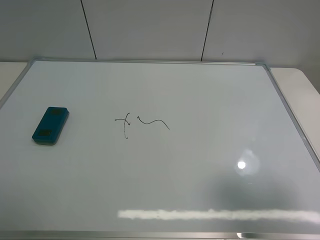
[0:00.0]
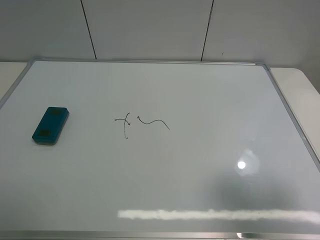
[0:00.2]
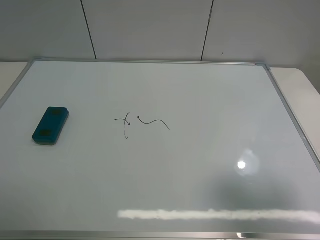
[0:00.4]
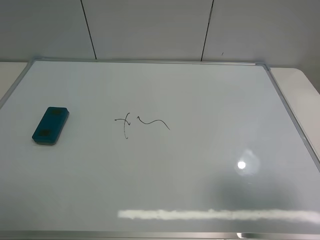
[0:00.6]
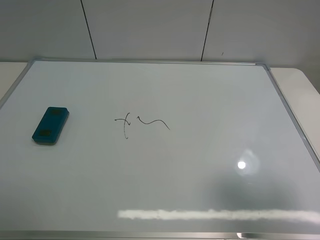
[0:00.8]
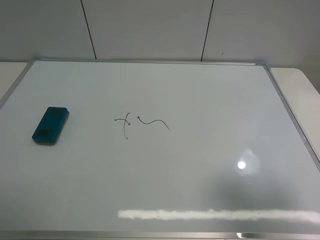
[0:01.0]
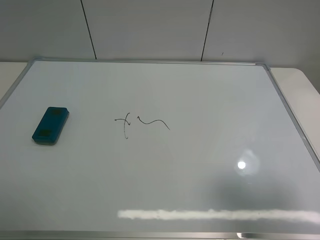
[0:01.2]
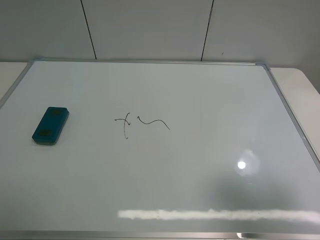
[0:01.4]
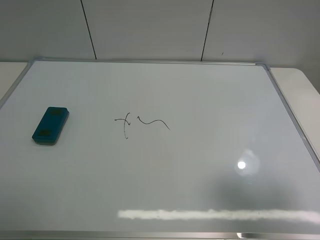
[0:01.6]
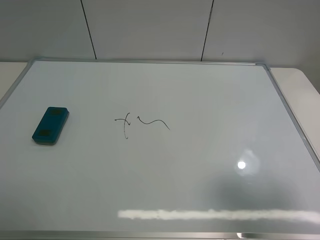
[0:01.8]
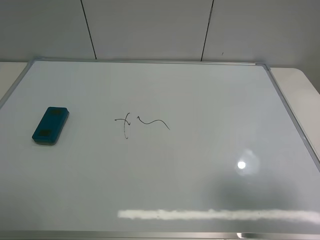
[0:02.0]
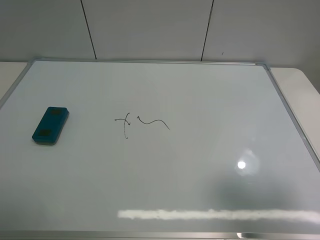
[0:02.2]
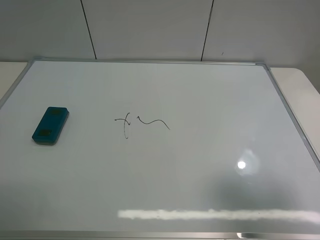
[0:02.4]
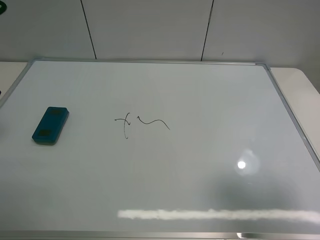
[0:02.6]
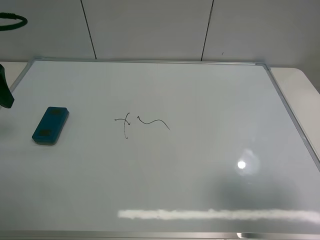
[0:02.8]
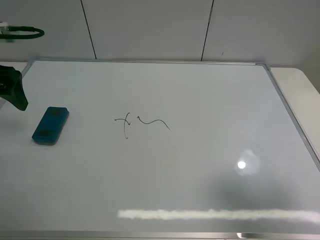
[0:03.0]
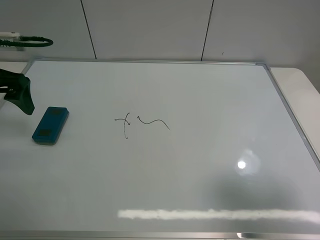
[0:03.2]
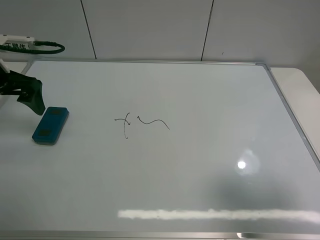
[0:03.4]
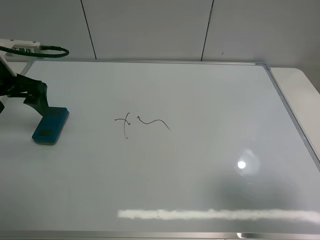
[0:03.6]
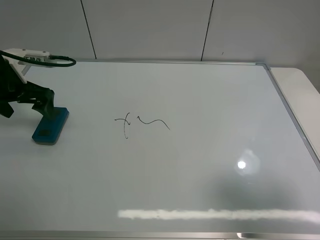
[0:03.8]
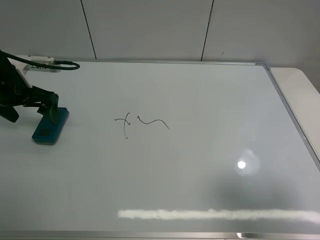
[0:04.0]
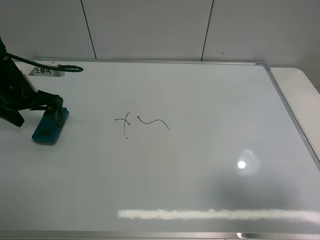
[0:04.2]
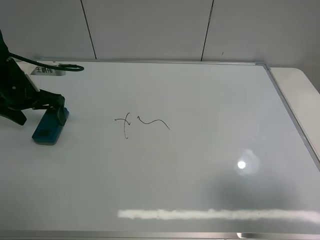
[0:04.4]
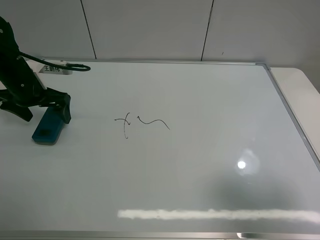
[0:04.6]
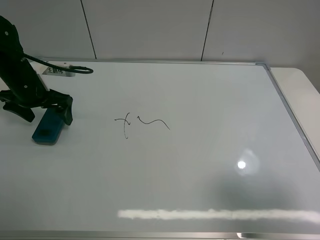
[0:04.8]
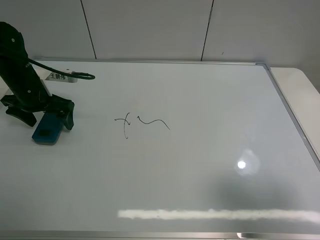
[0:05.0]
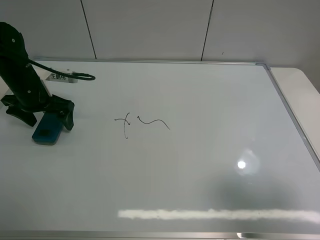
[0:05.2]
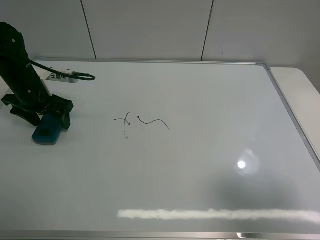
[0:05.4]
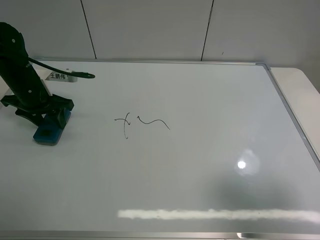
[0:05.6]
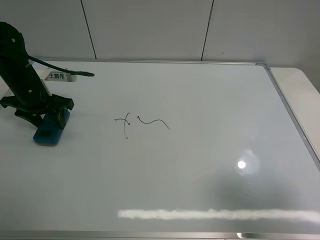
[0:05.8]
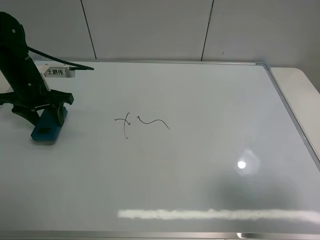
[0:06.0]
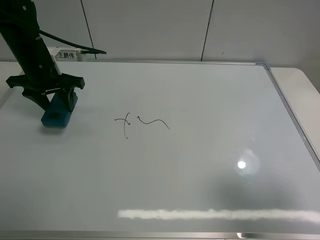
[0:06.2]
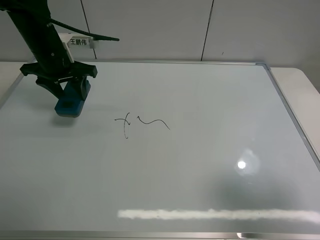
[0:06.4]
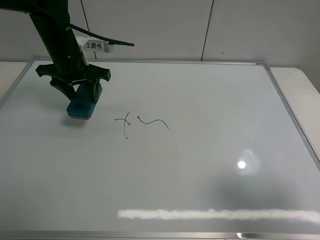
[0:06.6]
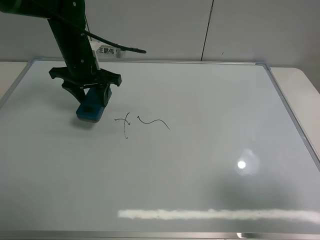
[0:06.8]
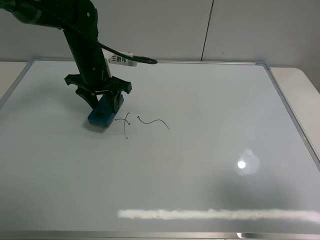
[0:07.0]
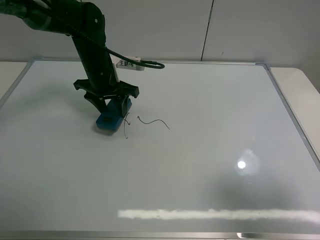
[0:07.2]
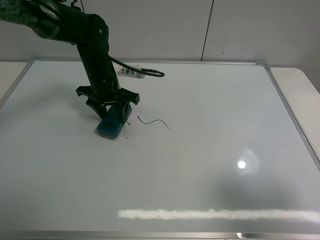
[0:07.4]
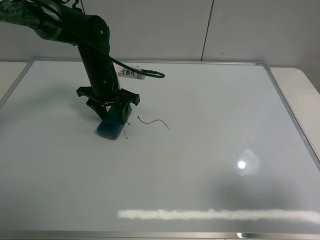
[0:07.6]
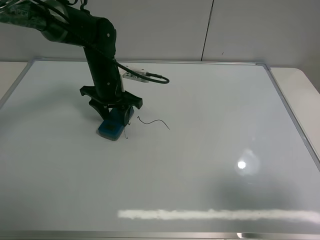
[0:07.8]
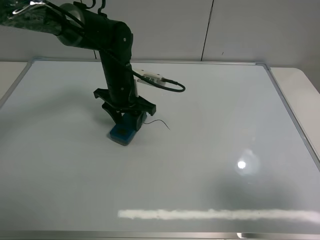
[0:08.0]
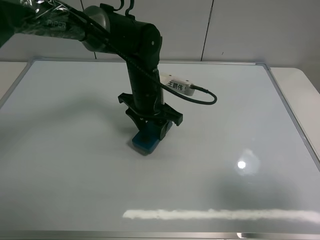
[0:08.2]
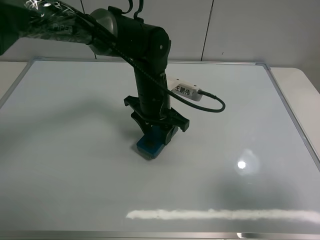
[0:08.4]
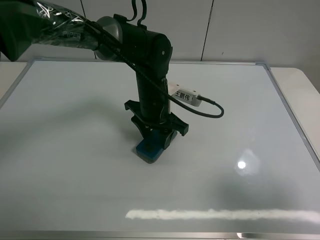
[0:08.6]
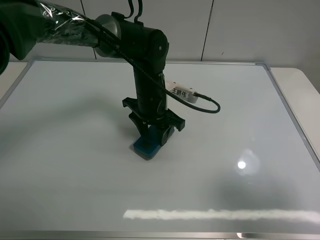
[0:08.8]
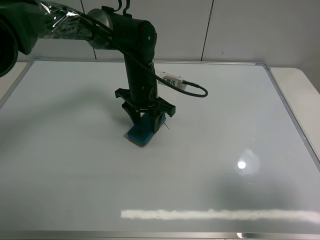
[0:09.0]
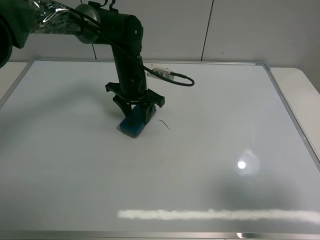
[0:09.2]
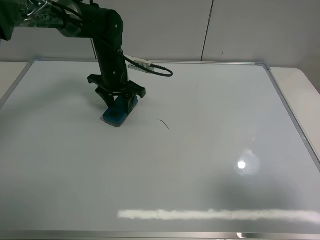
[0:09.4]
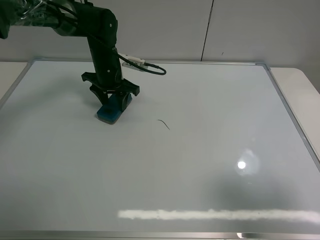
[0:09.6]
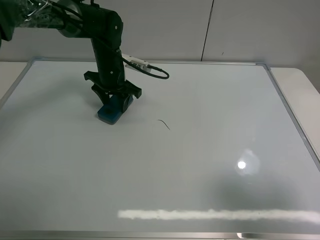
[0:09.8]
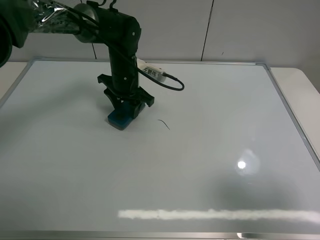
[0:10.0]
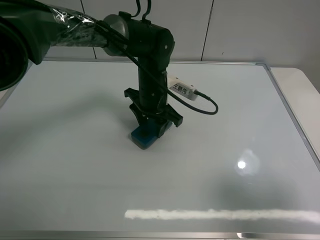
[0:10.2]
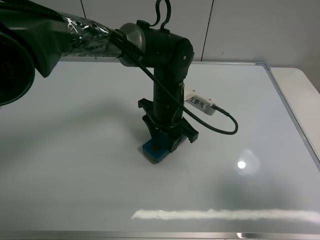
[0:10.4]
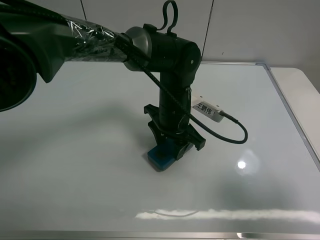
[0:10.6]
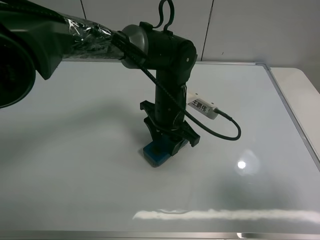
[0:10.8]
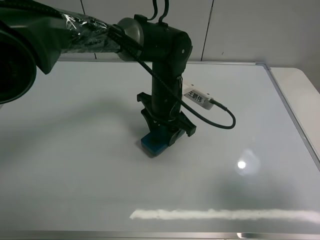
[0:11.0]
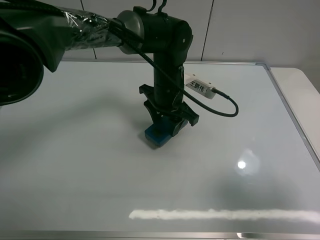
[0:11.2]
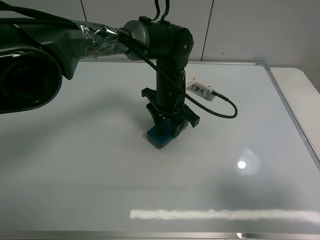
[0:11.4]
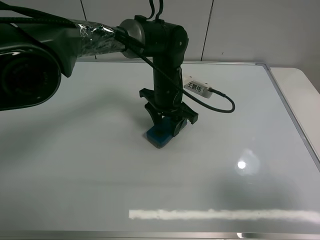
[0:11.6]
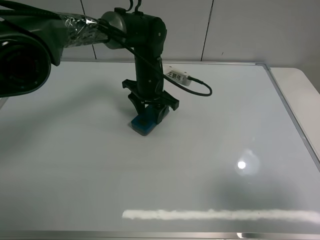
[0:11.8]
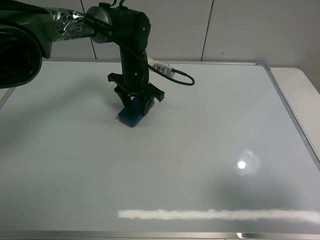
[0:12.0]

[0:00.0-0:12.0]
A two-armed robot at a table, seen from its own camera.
Task of the whole recording: use the left claw to pick up the whiteboard eraser, wipe the notes on the whiteboard clean, and then put them back in place.
Step, 0:00.0 to 0:05.6: Grasp the eraser with the left gripper.
0:00.0 to 0:01.6: The two grippers keep their place.
0:01.6 to 0:03.0: The left gripper moves forward, about 25 cm.
0:03.0 to 0:04.4: The left gripper travels downward and forward by about 10 cm.
0:04.4 to 0:06.0: The left gripper closes its fingers.
0:06.0 to 0:07.6: The left gripper moves to the right, approximately 15 cm.
0:07.6 to 0:09.0: The left gripper goes some 10 cm to the right.
0:09.0 to 0:10.4: The left gripper is displaced to the right and backward by approximately 10 cm.
0:10.4 to 0:12.0: The left gripper goes some 15 cm forward and to the left.

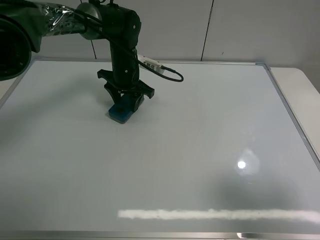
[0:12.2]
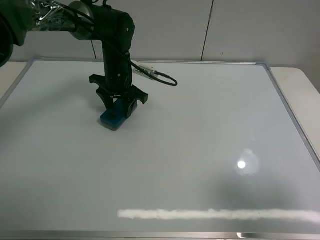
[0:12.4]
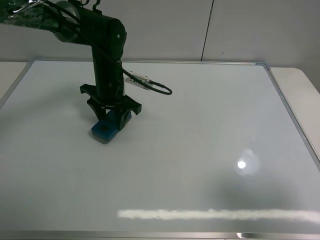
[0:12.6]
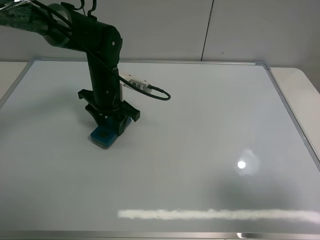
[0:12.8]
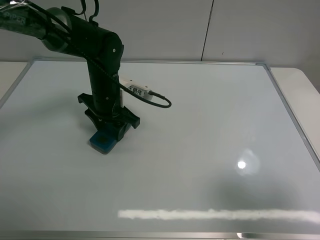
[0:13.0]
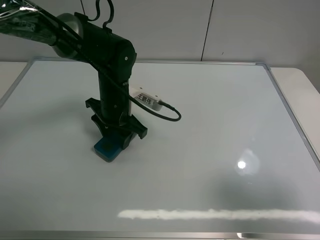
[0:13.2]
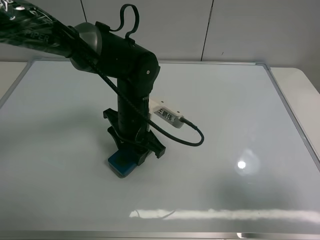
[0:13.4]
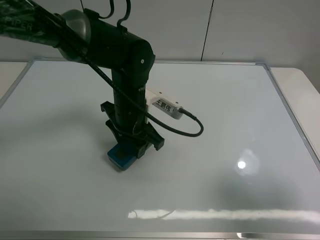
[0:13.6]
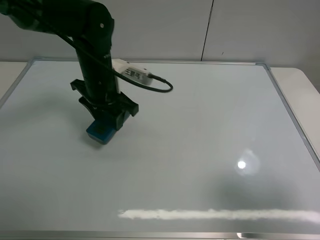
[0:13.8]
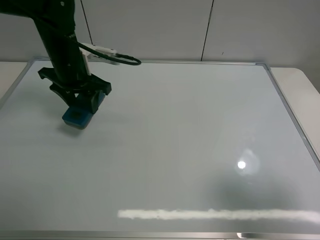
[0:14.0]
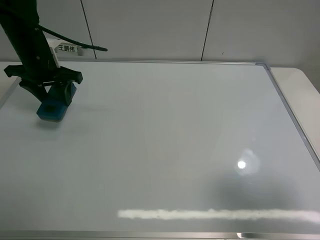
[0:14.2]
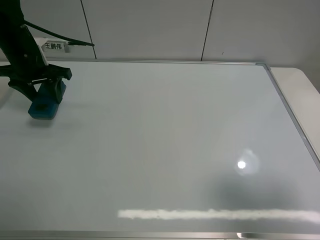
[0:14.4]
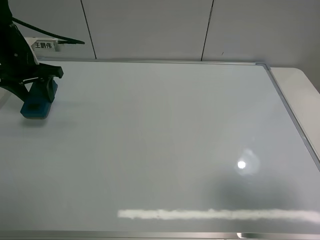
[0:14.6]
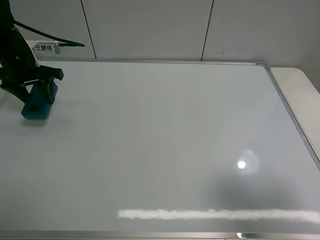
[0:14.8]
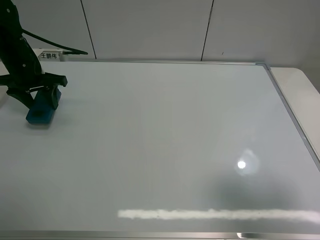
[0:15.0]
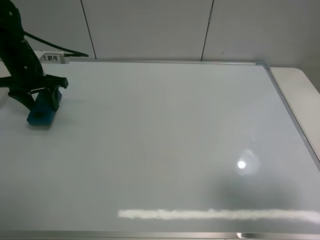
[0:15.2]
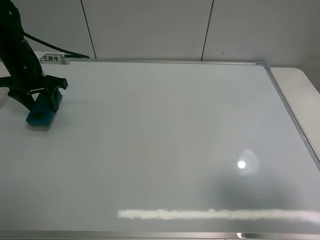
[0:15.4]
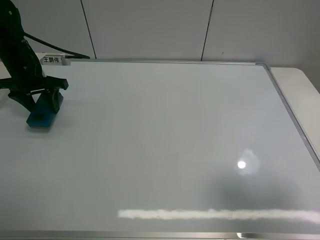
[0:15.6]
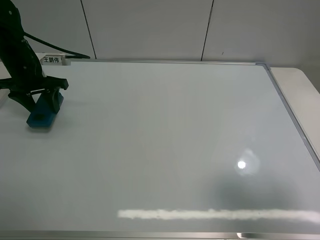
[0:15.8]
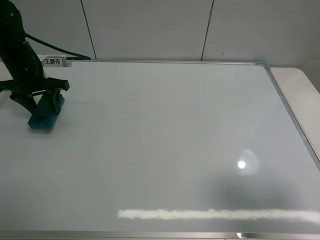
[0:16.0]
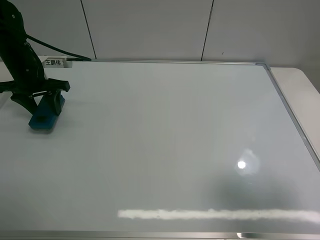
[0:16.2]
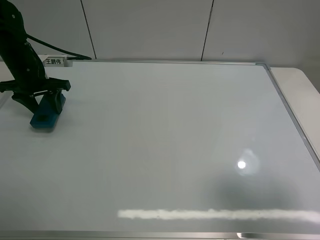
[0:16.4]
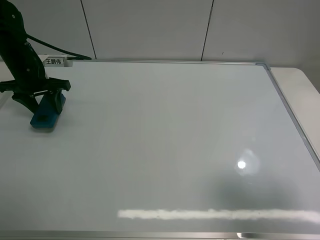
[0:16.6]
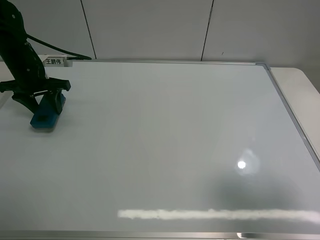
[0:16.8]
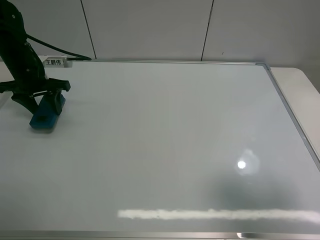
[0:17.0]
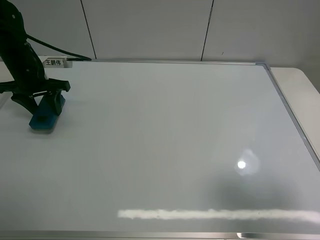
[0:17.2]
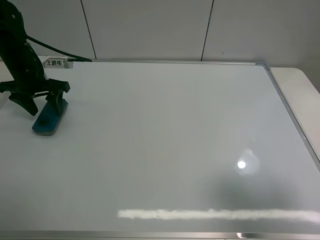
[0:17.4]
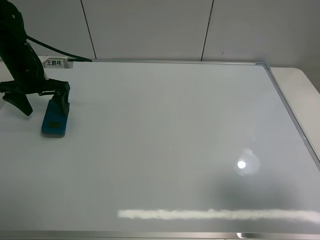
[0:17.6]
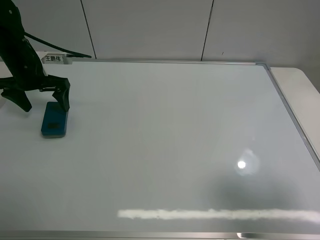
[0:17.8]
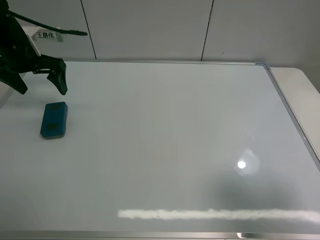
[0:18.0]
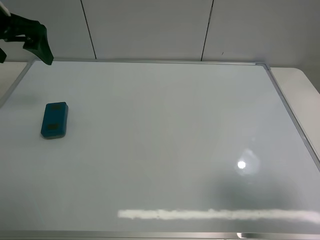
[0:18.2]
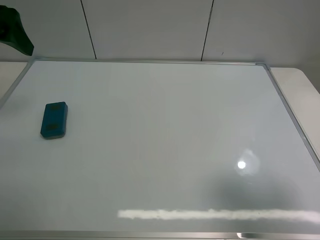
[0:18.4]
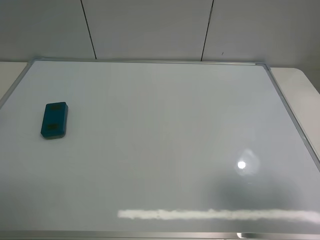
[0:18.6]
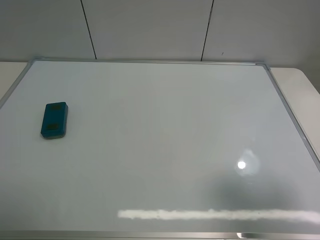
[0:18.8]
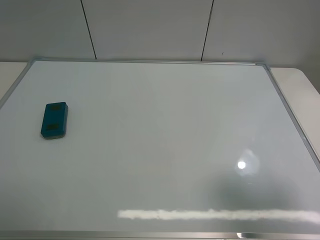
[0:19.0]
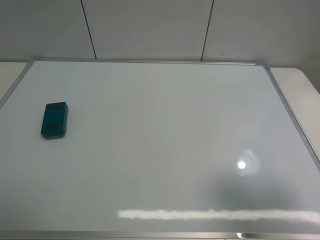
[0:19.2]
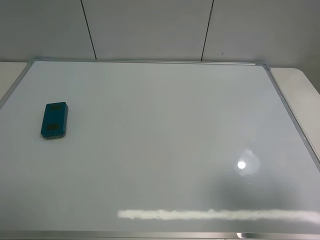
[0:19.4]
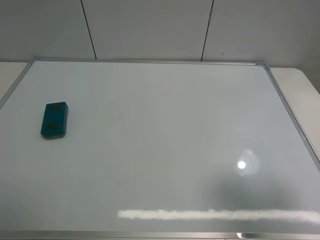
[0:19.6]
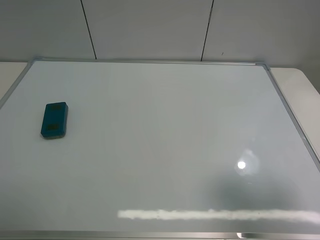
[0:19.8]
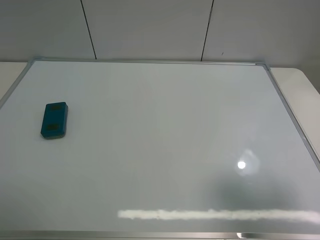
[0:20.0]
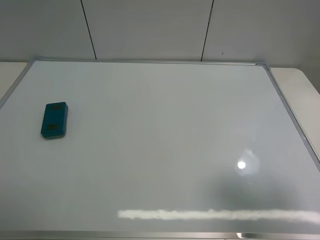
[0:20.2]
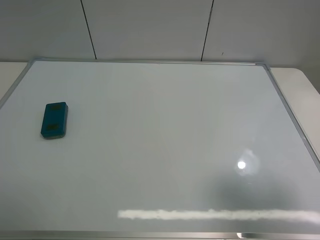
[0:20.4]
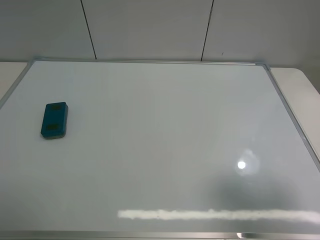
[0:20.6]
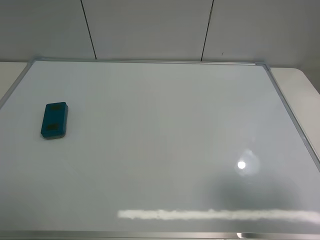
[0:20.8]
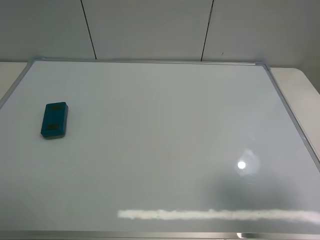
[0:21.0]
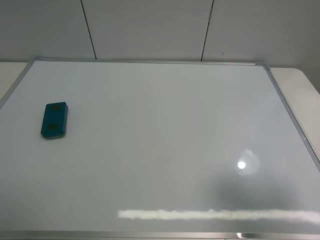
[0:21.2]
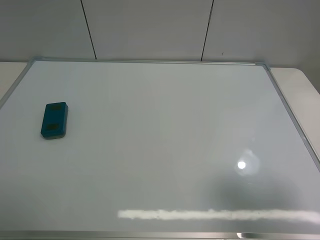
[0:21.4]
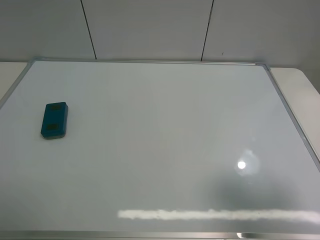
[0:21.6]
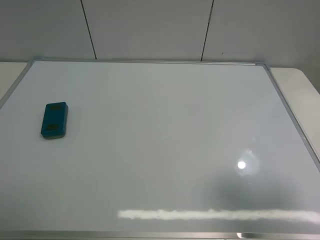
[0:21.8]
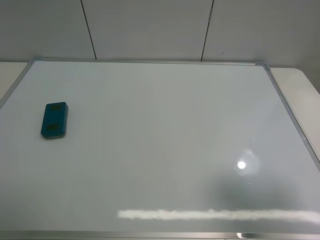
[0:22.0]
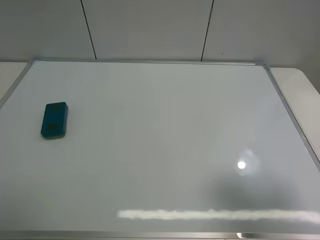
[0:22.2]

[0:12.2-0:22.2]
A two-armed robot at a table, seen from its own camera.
Task of the whole recording: use the left claw to pick up the whiteboard eraser, wipe the notes on the whiteboard clean, and then put them back in place.
Step, 0:12.4 to 0:17.6: Place the eraser with the left gripper.
0:12.2 to 0:13.6: The left gripper goes some 15 cm backward.
0:13.6 to 0:15.0: The left gripper goes roughly 25 cm to the left.
0:15.0 to 0:16.4: Both grippers stay about where they are.
0:16.4 to 0:18.0: The left gripper moves upward, approximately 5 cm, and opens up.
0:18.0 to 0:19.4: The left gripper moves backward, some 40 cm.
